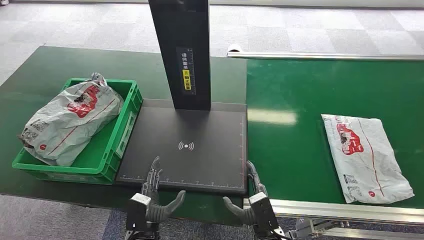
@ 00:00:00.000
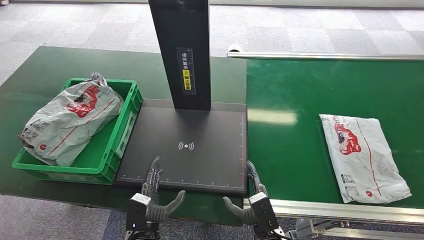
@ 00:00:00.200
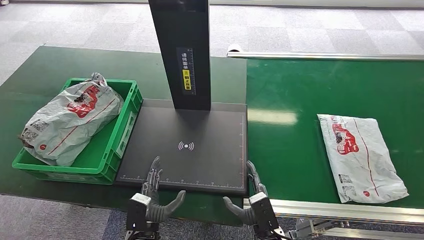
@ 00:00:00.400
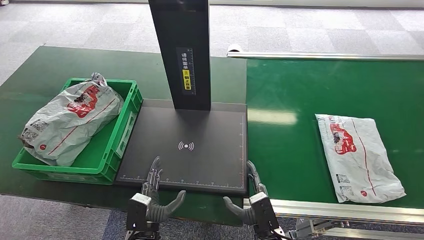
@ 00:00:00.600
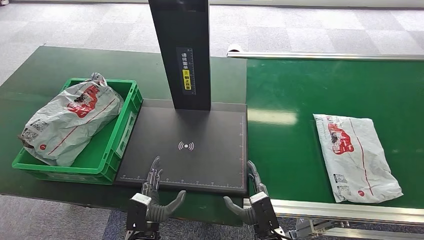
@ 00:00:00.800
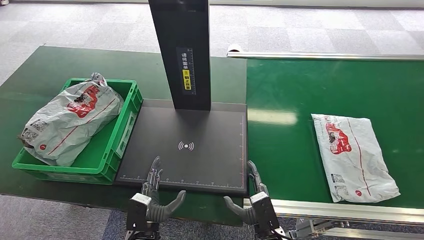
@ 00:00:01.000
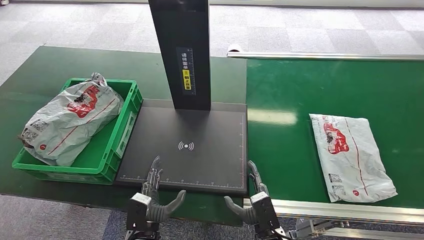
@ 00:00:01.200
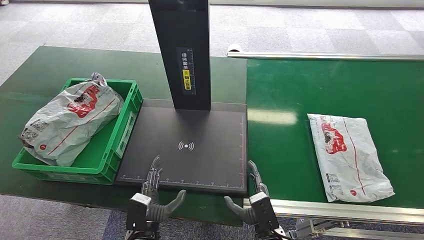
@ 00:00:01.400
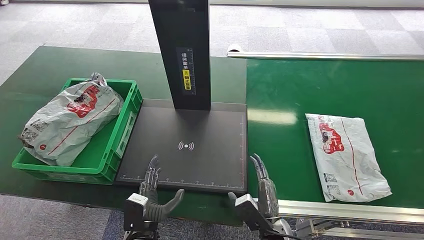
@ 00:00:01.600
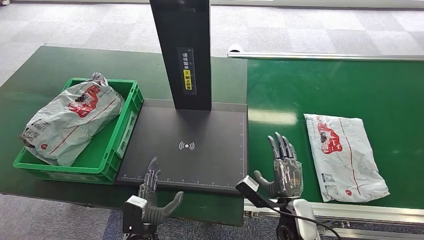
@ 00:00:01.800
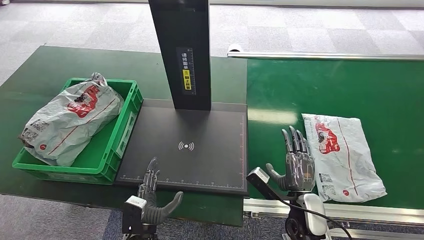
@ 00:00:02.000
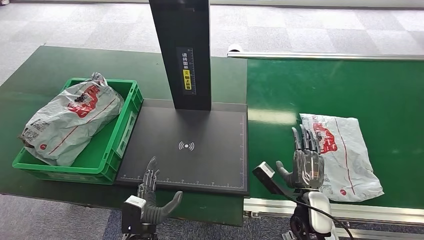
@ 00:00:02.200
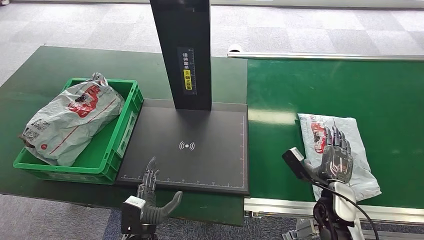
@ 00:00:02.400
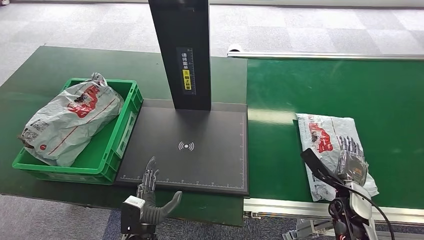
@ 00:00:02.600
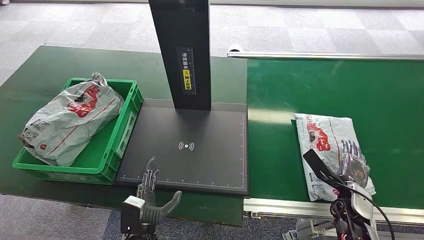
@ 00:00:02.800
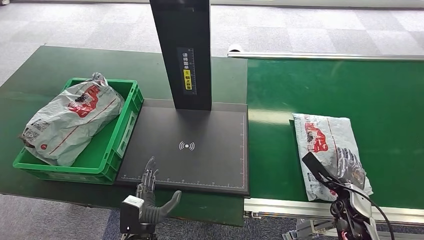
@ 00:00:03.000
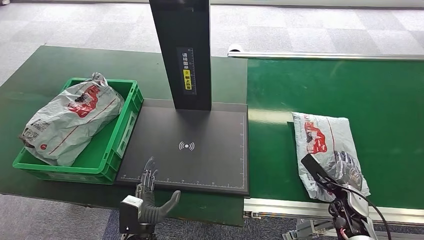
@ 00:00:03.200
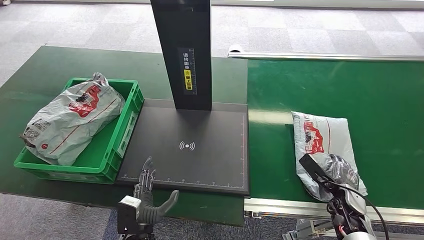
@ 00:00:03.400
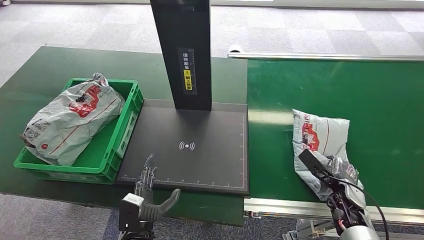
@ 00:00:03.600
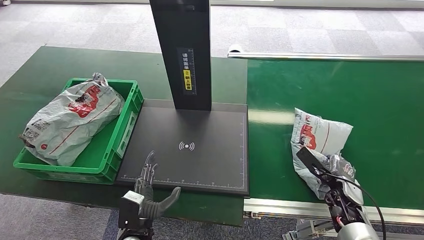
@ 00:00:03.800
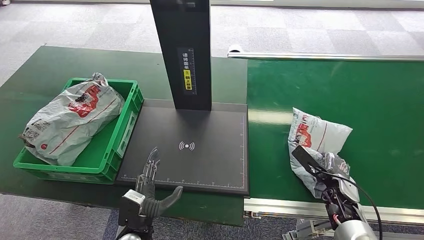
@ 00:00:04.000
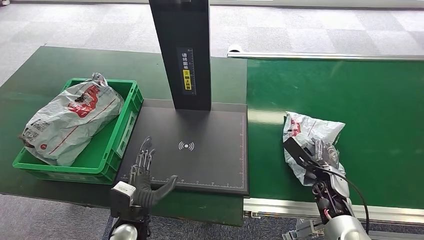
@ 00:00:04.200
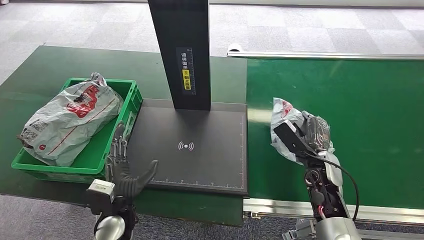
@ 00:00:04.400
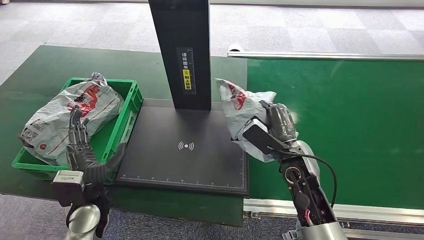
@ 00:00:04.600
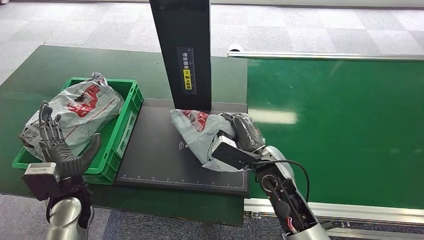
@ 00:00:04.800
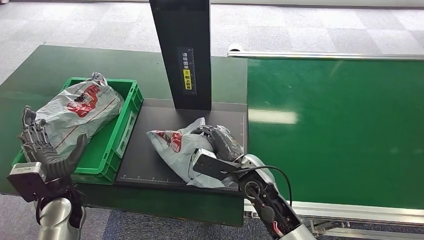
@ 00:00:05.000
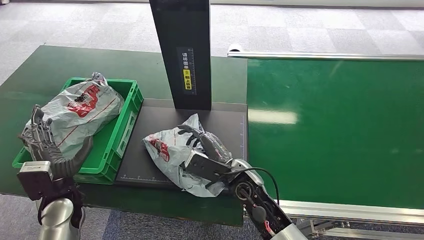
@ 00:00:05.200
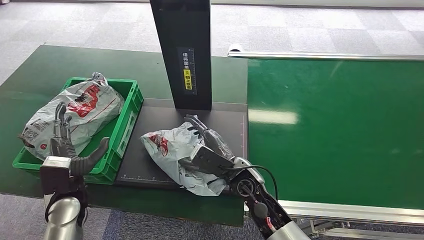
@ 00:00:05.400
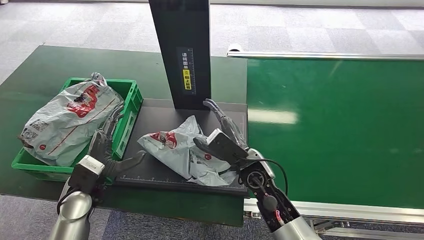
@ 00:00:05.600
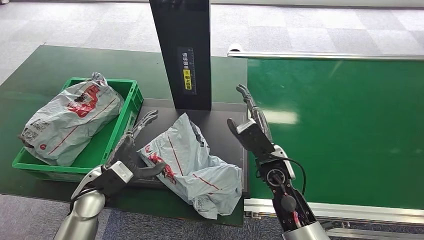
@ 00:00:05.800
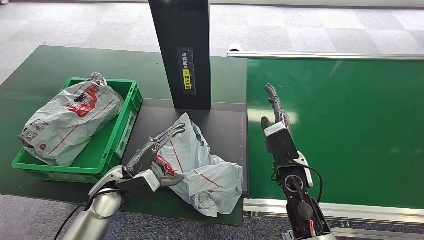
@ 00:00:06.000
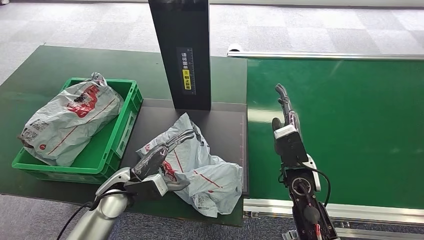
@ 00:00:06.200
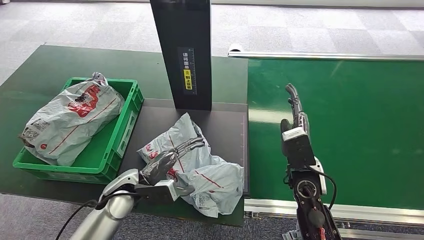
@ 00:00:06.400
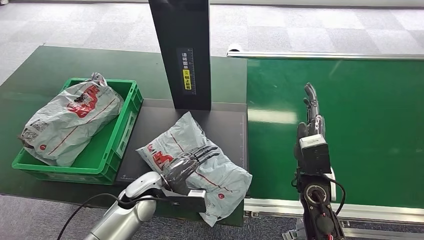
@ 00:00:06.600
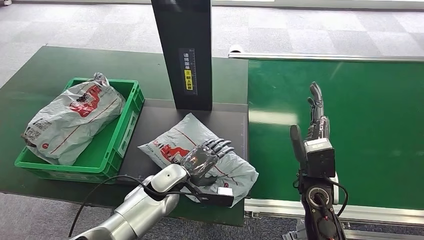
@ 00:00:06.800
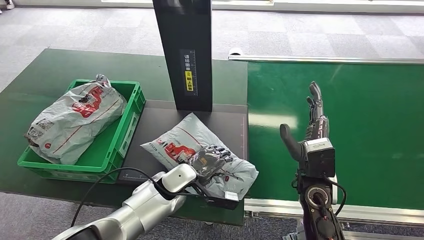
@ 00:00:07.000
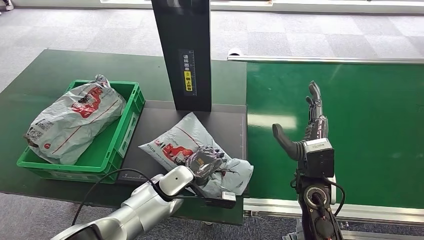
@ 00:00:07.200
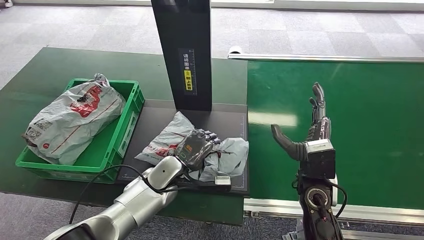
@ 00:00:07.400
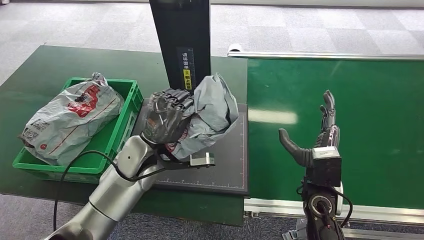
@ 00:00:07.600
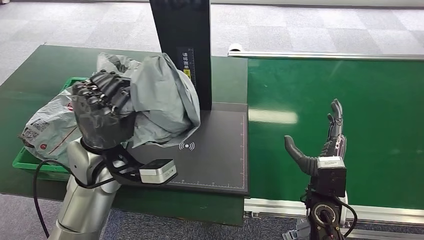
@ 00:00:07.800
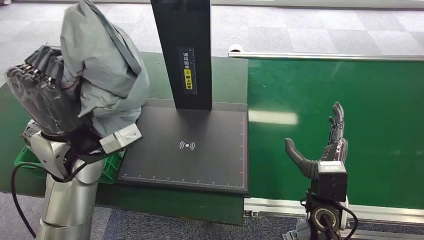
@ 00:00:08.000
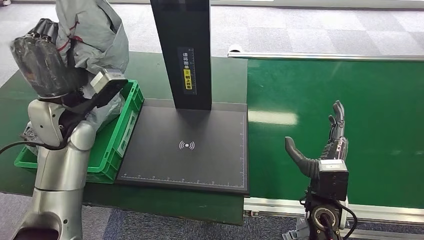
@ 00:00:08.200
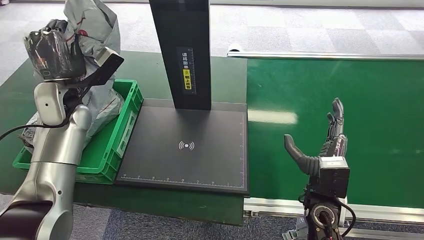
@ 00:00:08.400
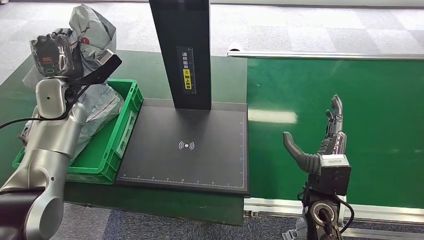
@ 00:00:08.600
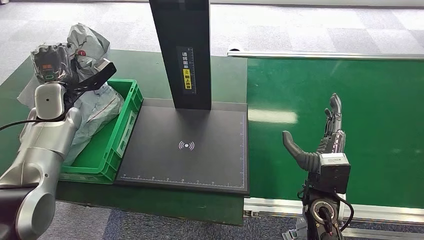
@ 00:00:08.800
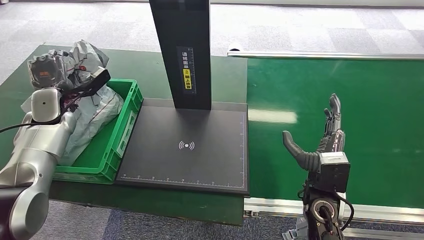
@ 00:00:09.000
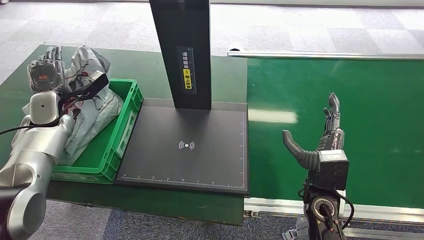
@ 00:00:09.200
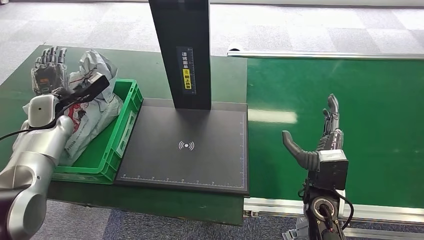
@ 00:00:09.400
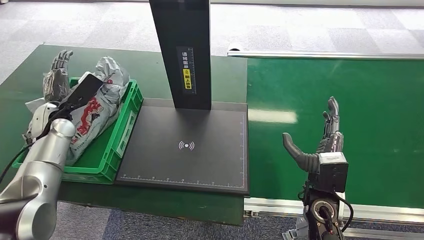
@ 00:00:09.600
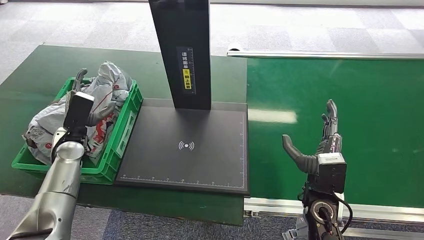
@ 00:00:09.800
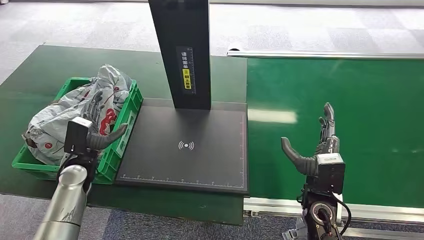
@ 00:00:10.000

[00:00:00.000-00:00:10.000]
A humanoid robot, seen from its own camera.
Step, 00:00:00.000 to 00:00:04.200: Pick up the package from the conveyor belt.
Step, 00:00:04.600 to 00:00:05.800: Place the package onto the inbound machine.
Step, 00:00:06.200 to 00:00:07.800: Pick up the package from the inbound machine.
Step, 00:00:08.000 to 00:00:09.800: Place the package into the parcel locker.
00:00:01.400 to 00:00:02.800: The right hand goes approximately 25 cm to the right and forward.
00:00:02.800 to 00:00:04.200: The right hand ends up some 5 cm from where it was, while the left hand shifts by some 5 cm.
00:00:08.600 to 00:00:10.000: The left hand shifts approximately 20 cm downward and backward.
